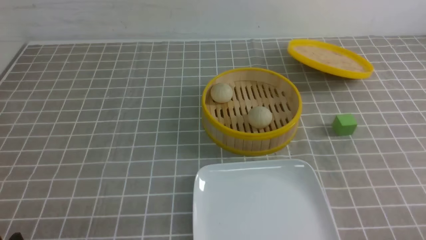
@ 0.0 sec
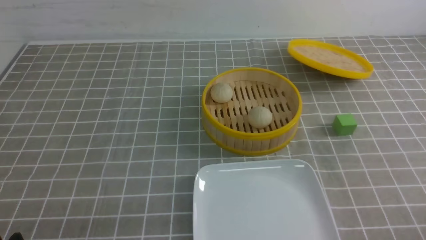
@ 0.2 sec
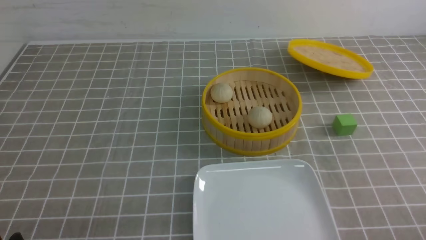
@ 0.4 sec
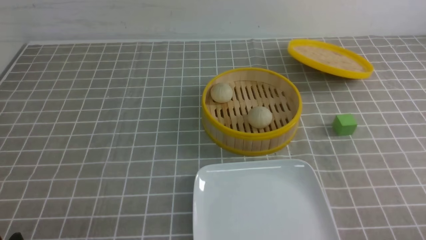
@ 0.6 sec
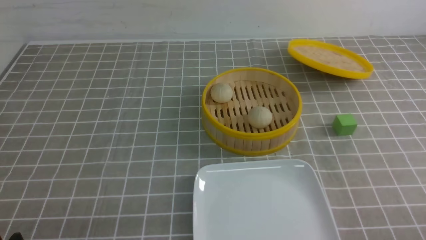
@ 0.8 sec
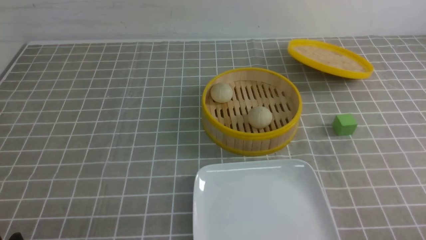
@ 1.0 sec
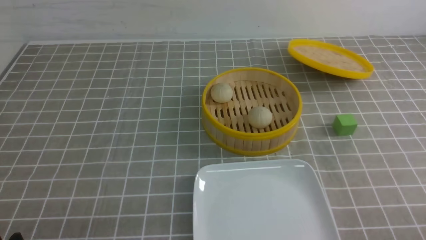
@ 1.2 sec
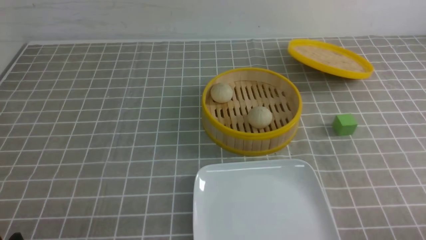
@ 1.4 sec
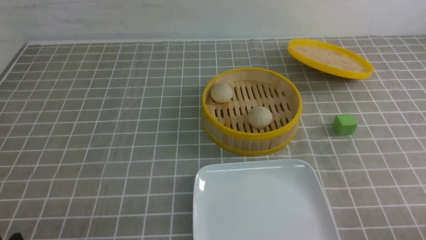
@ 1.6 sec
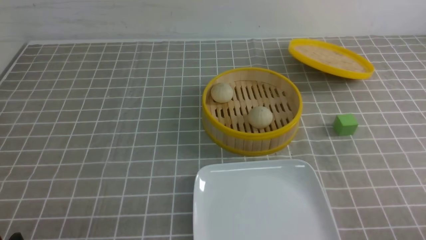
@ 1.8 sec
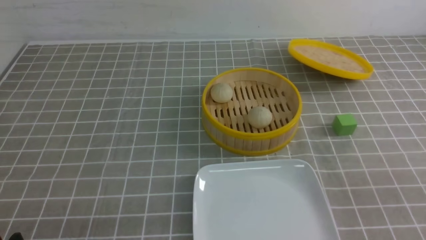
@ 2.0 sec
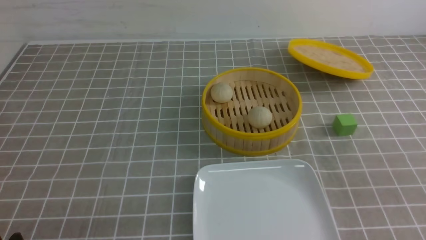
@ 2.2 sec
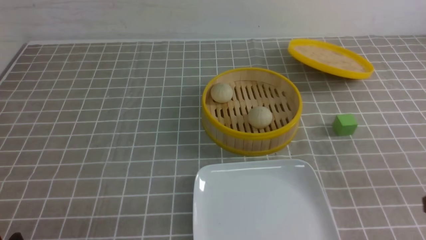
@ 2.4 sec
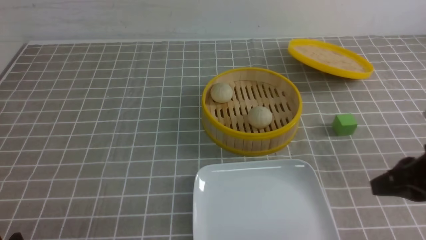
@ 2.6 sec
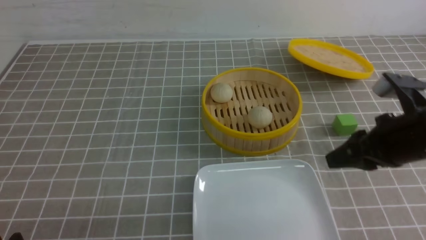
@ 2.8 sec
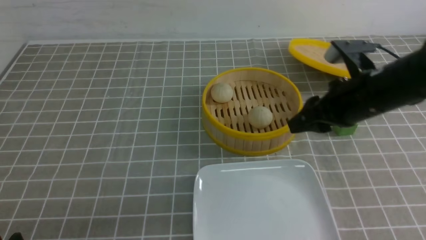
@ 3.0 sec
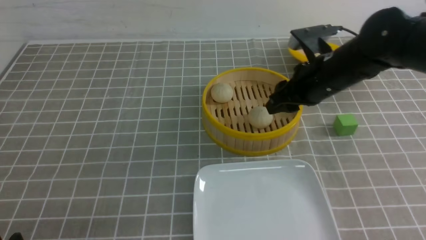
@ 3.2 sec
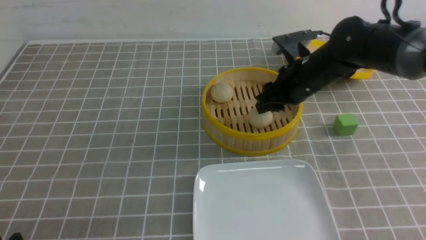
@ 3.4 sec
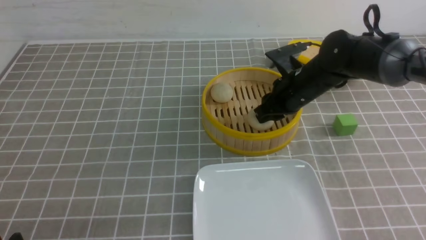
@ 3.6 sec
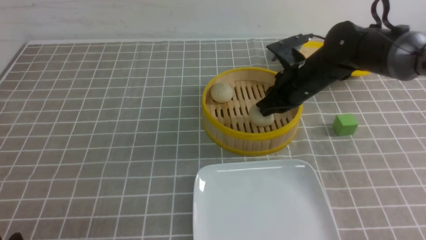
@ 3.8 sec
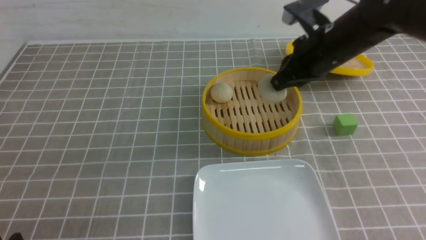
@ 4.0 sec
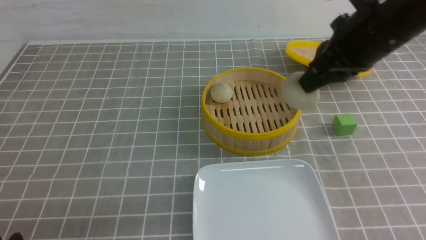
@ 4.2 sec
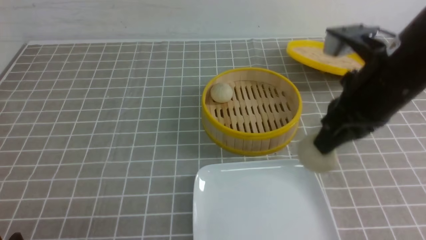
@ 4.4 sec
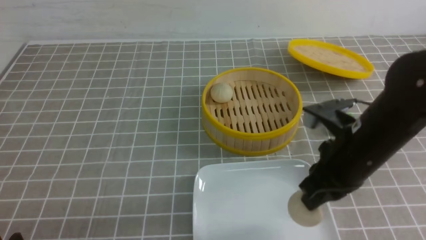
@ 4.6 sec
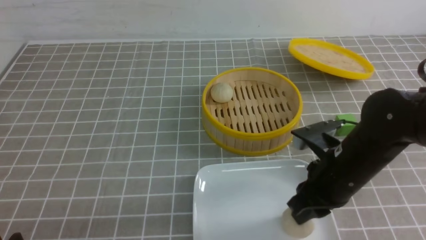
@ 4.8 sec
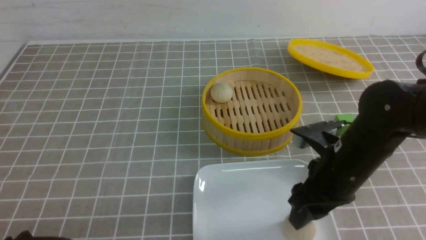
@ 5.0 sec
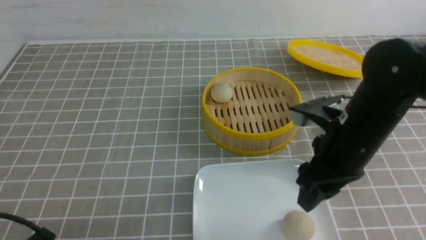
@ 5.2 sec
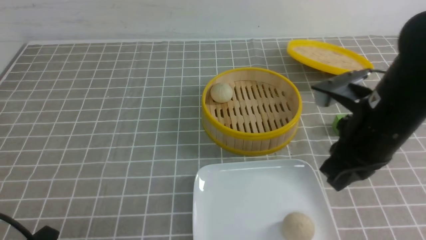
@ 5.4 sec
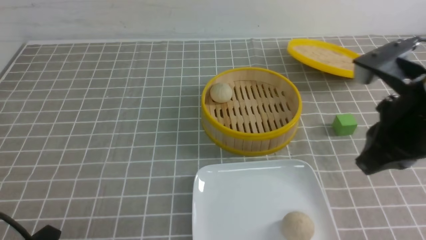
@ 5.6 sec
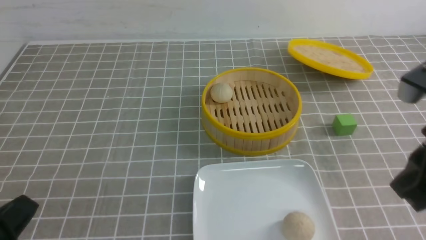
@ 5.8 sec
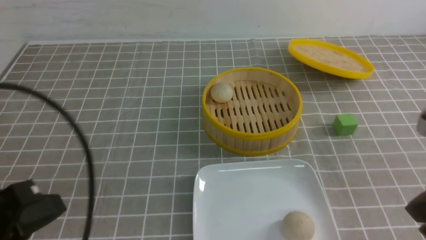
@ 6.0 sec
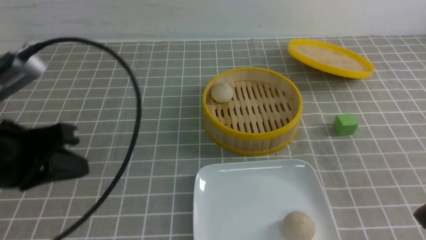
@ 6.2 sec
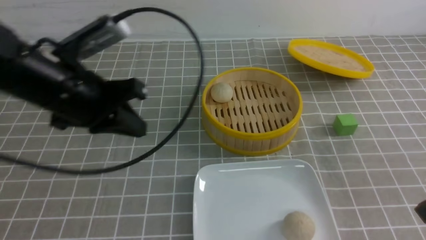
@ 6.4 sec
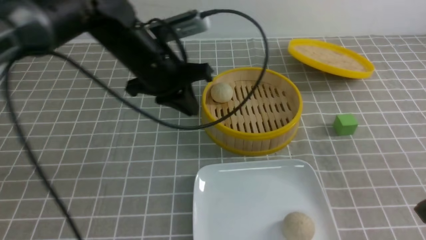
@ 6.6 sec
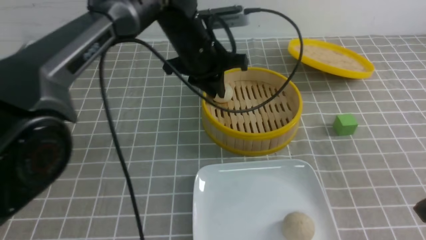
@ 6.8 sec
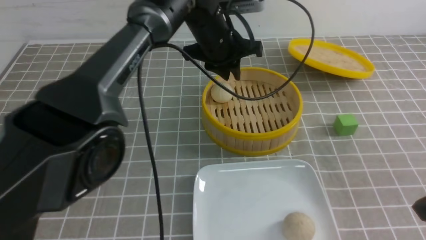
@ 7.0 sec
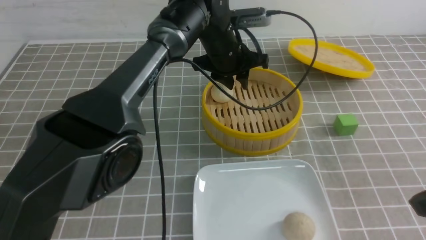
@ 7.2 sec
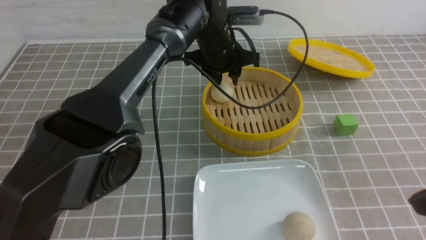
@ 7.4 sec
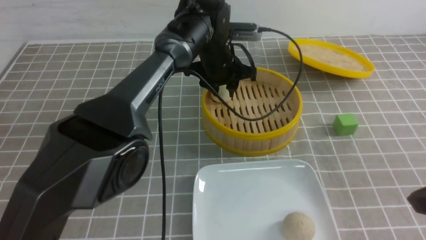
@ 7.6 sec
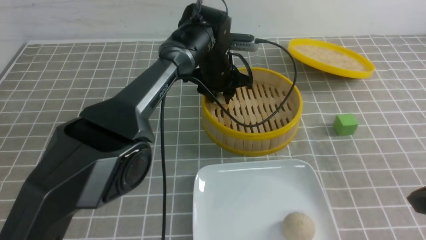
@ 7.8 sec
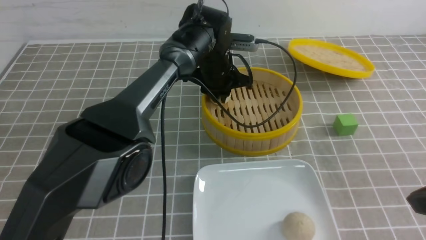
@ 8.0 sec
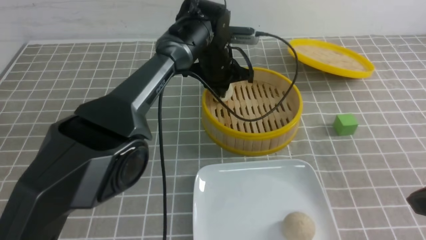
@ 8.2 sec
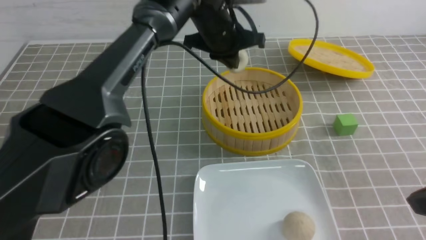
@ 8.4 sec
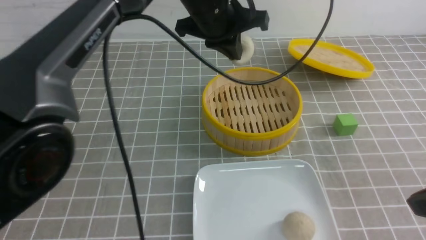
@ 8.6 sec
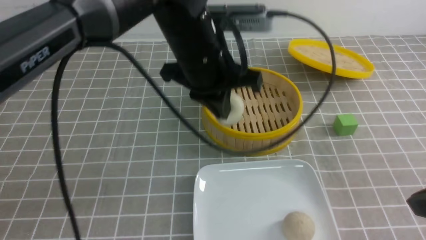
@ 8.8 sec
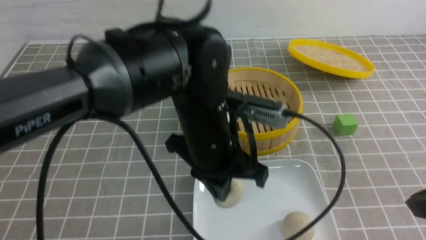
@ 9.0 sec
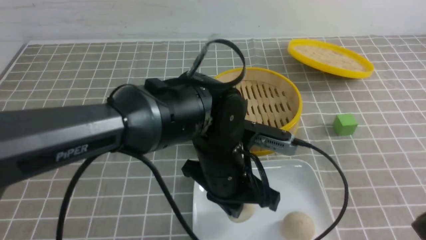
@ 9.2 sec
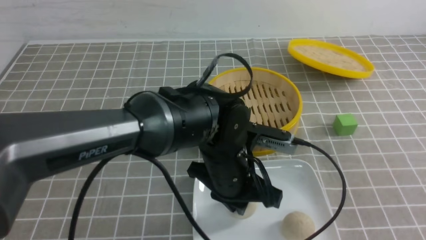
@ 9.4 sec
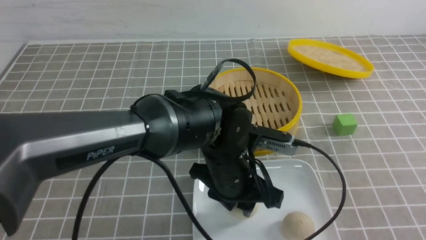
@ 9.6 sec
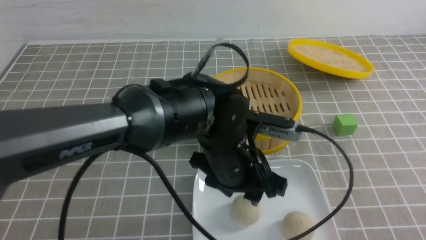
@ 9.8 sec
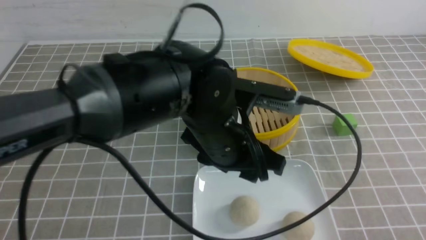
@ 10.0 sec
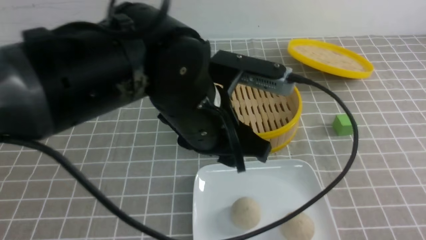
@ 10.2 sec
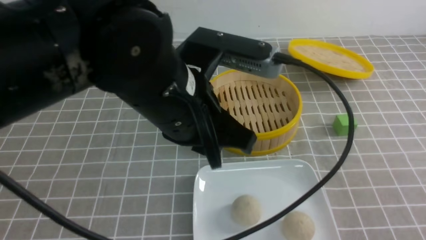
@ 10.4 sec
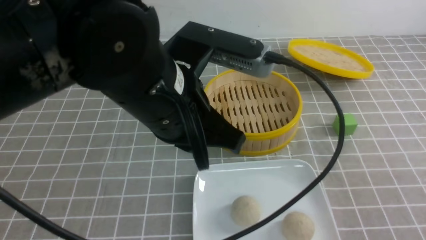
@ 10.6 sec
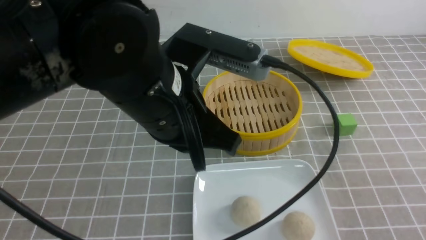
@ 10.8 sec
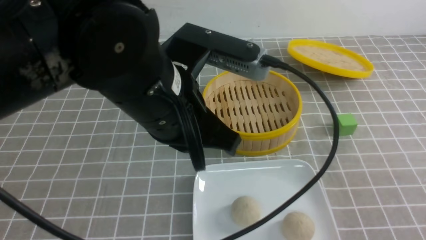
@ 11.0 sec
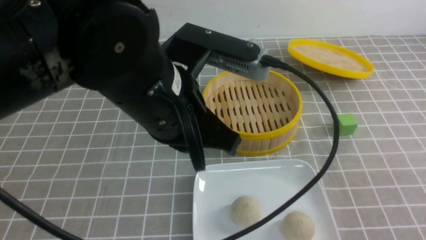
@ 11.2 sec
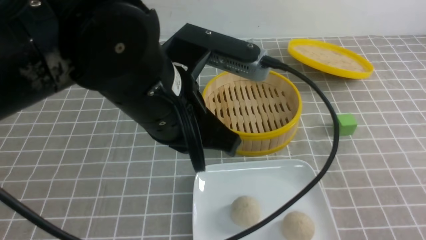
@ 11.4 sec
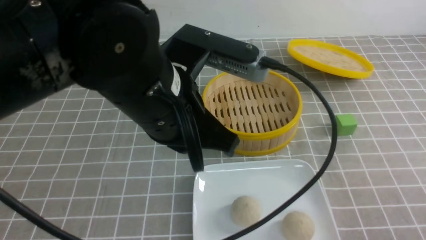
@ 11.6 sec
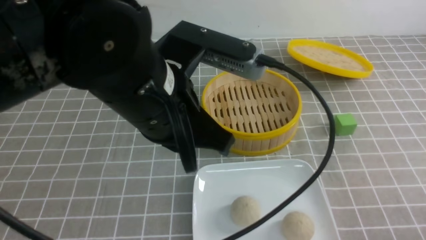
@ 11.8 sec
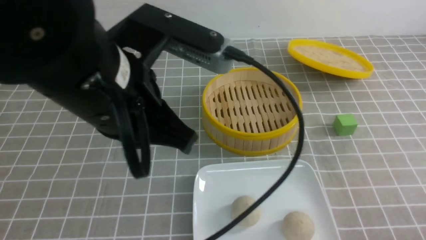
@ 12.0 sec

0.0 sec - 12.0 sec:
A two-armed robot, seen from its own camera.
Step, 0.0 sec - 3.8 sec: use the right arm to grab the steamed stuffed bun that is closest to it.
Step, 4.0 sec - 4.8 sec: use the right arm to put the steamed stuffed bun into the plate.
Step, 5.0 sec - 8.0 sec: use the left arm to grab the steamed stuffed bun that is closest to it.
Step, 8.4 sec - 9.6 sec: use the left arm to put the steamed stuffed bun into the plate.
1.6 sec - 3.0 sec: The right gripper shifts roughly 25 cm forward, and closes and opens again.
3.0 sec - 4.4 sec: The right gripper reaches approximately 10 cm forward, then returns, and closes.
4.4 sec - 6.0 sec: The left gripper shifts some 15 cm upward, and closes its fingers. The right gripper is displaced backward and to the right by roughly 15 cm, and opens and closes again.
6.0 sec - 7.6 sec: The left gripper shifts approximately 40 cm forward and to the right, and opens its fingers.
7.6 sec - 9.0 sec: The left gripper is displaced backward by roughly 20 cm, and closes up.
9.0 sec - 10.4 sec: The left gripper travels upward and backward by some 10 cm, and opens its fingers, while the right gripper is displaced backward and to the right by some 10 cm.
10.4 sec - 12.0 sec: The right gripper heads downward, covering some 15 cm; the left gripper moves to the left, about 5 cm, and closes.

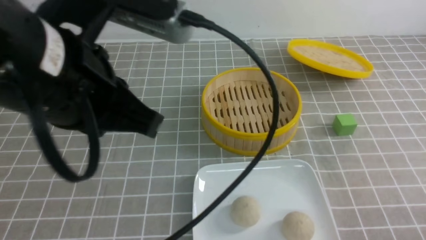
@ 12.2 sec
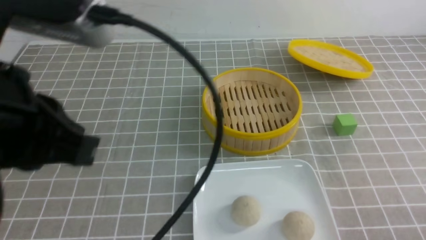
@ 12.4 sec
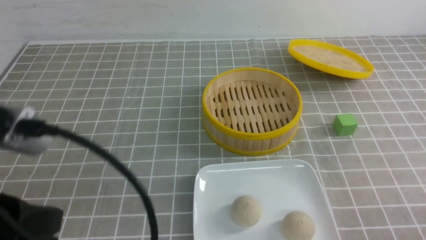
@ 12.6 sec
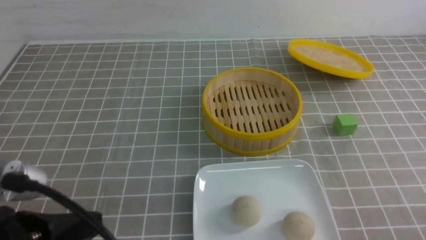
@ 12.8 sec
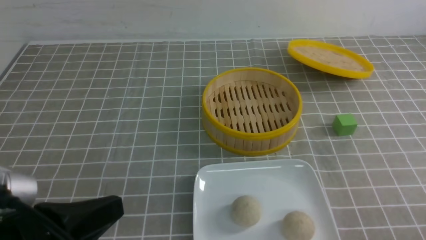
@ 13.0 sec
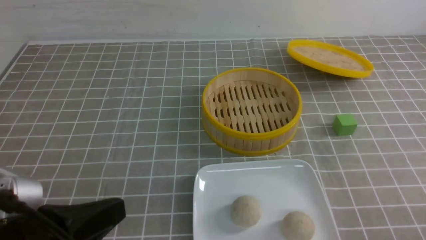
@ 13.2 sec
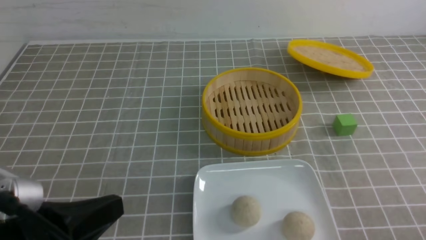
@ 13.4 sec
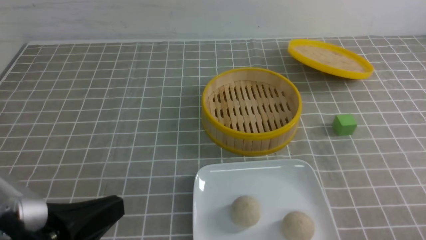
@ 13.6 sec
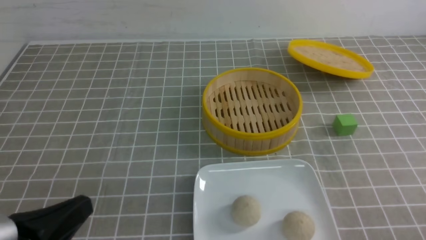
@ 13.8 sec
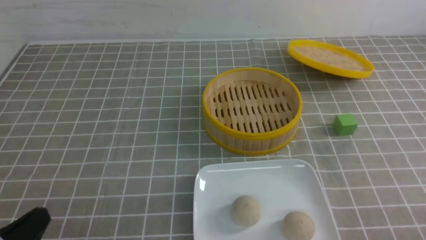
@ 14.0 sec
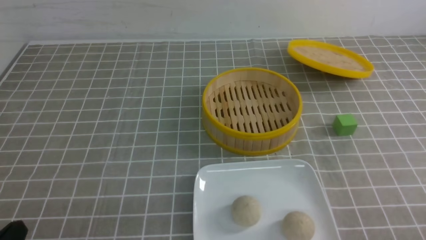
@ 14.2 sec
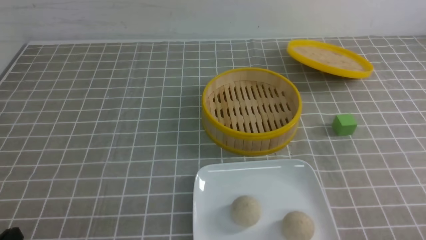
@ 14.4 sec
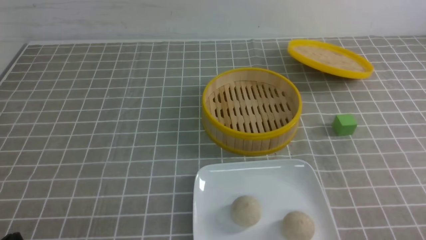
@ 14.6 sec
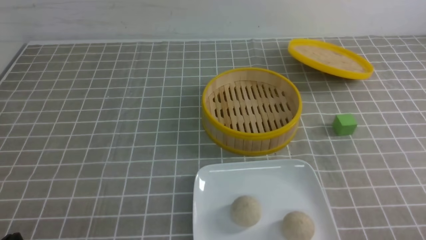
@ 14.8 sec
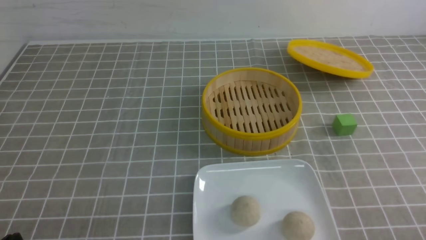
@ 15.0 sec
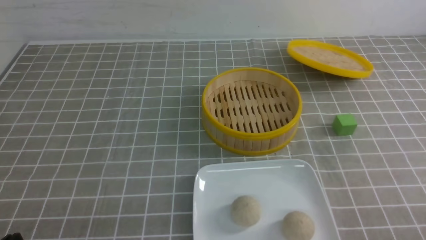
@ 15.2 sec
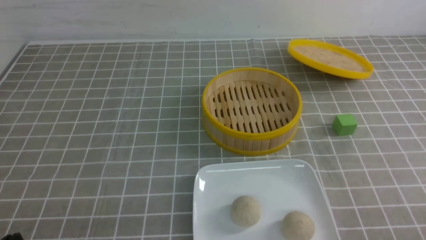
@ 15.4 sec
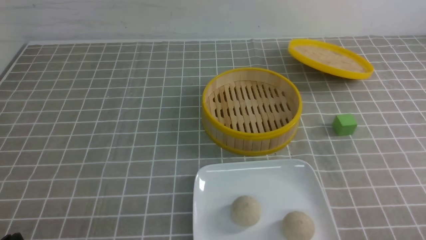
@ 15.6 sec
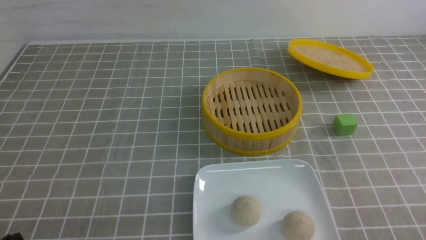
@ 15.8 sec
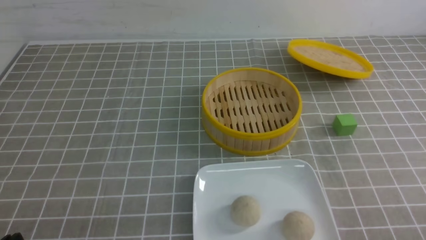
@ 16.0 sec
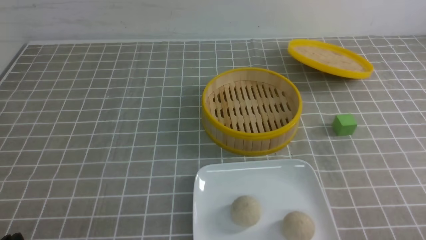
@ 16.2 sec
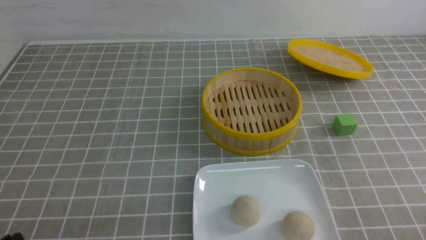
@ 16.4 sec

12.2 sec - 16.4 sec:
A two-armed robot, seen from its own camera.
12.2 sec - 13.6 sec: The left gripper goes about 15 cm downward, backward and to the left.
13.6 sec - 15.0 sec: The left gripper heads downward and to the left, covering roughly 10 cm.
15.0 sec - 16.4 sec: Both grippers stay put.
